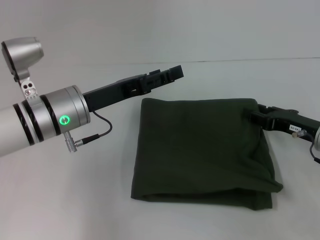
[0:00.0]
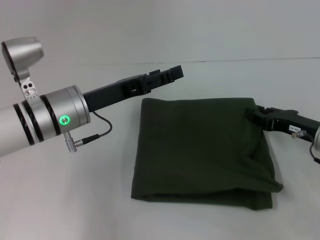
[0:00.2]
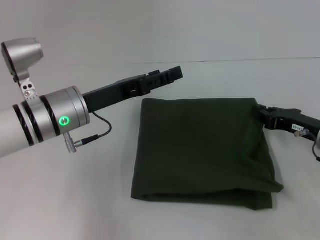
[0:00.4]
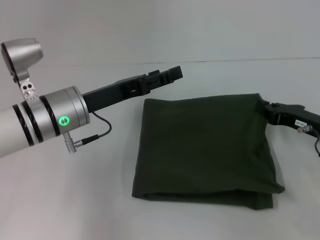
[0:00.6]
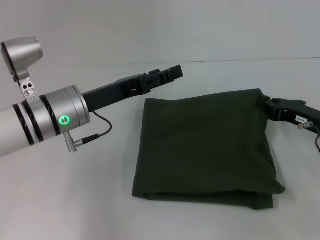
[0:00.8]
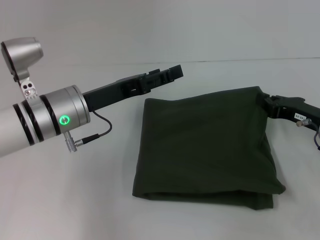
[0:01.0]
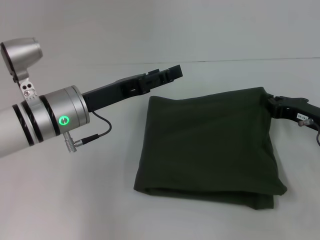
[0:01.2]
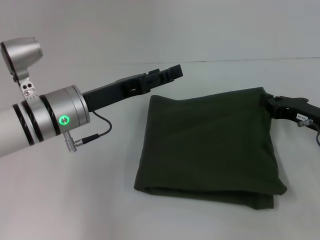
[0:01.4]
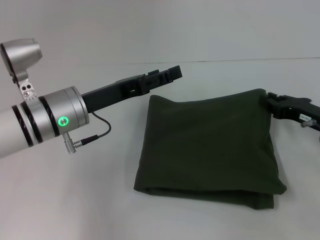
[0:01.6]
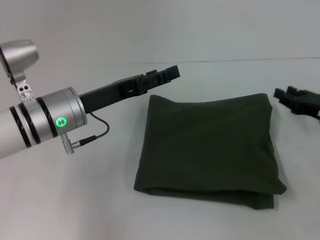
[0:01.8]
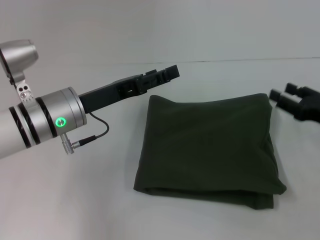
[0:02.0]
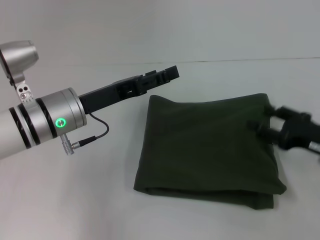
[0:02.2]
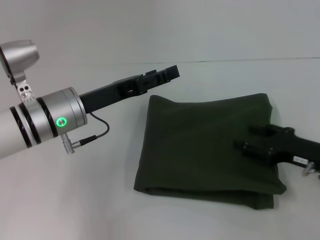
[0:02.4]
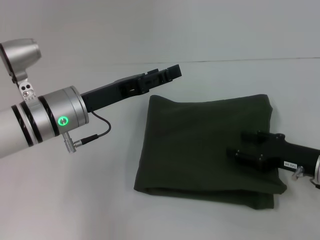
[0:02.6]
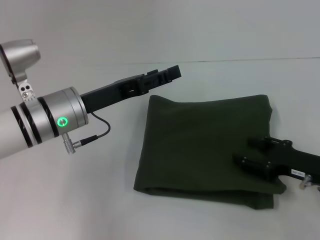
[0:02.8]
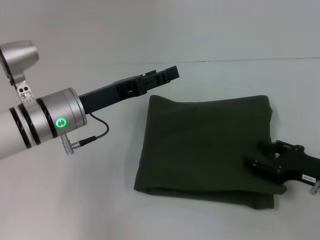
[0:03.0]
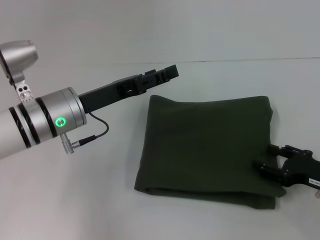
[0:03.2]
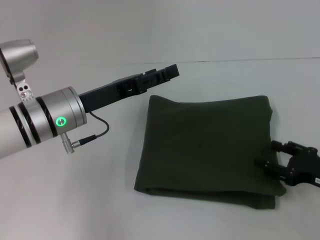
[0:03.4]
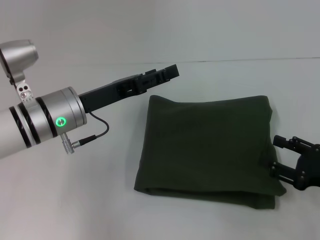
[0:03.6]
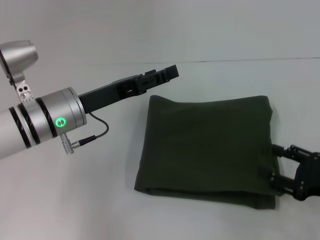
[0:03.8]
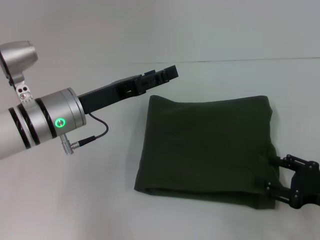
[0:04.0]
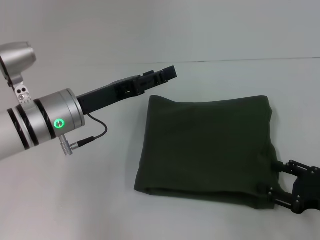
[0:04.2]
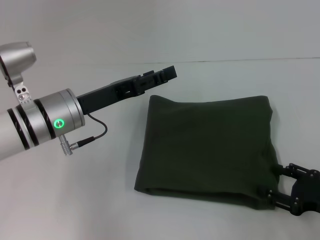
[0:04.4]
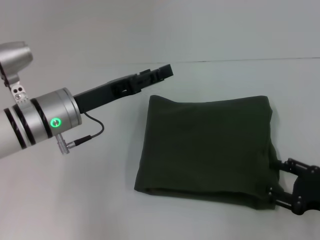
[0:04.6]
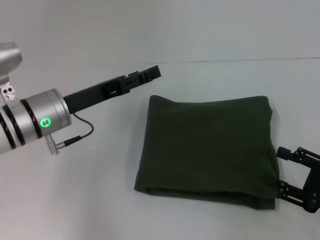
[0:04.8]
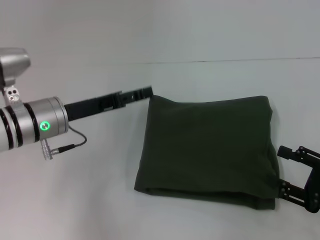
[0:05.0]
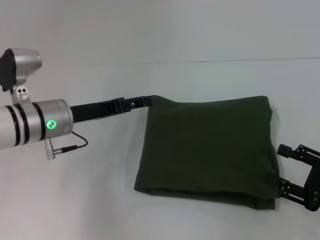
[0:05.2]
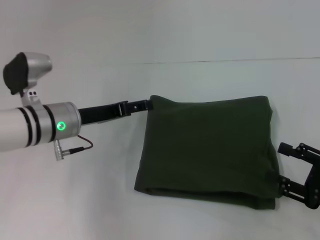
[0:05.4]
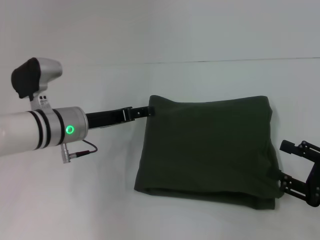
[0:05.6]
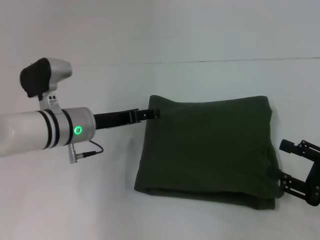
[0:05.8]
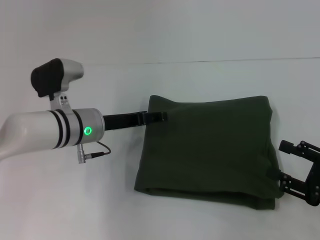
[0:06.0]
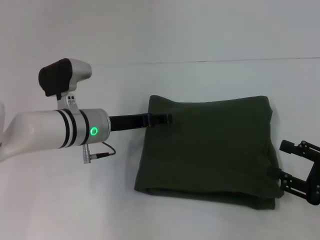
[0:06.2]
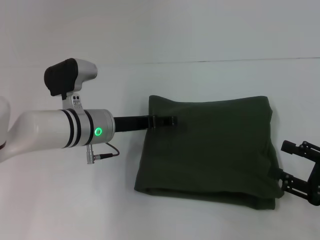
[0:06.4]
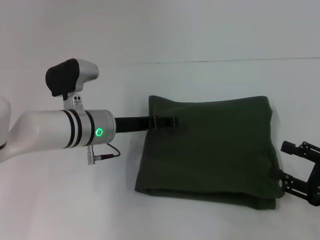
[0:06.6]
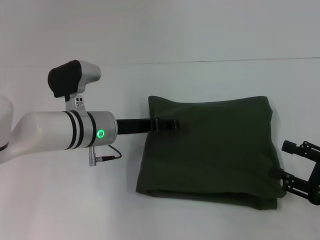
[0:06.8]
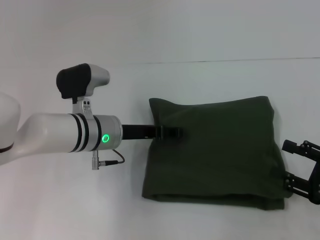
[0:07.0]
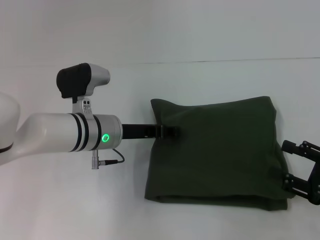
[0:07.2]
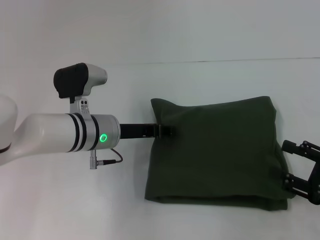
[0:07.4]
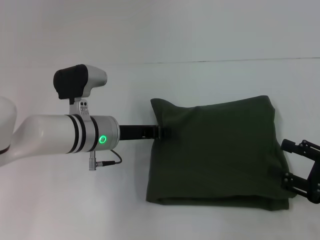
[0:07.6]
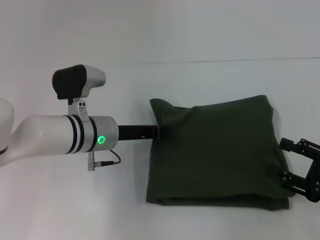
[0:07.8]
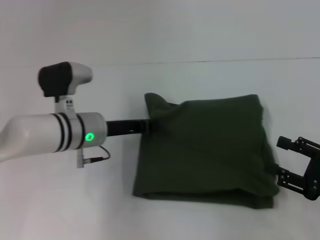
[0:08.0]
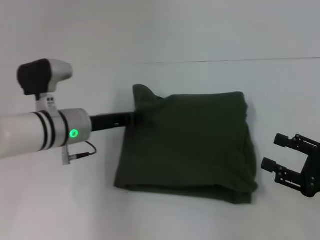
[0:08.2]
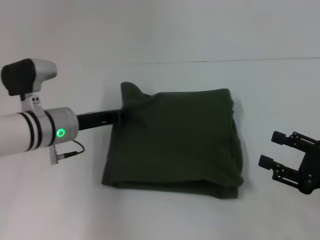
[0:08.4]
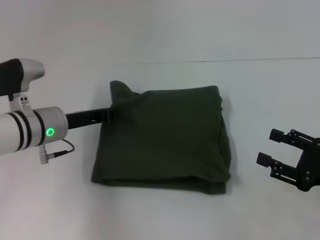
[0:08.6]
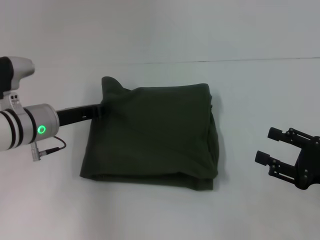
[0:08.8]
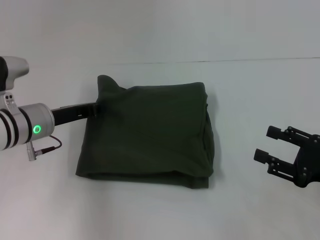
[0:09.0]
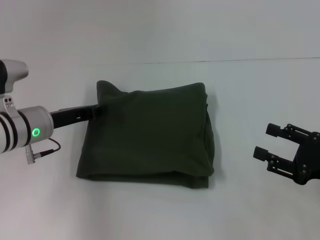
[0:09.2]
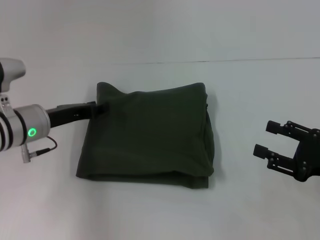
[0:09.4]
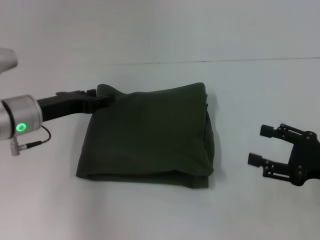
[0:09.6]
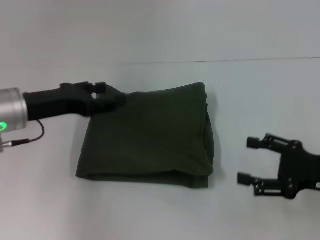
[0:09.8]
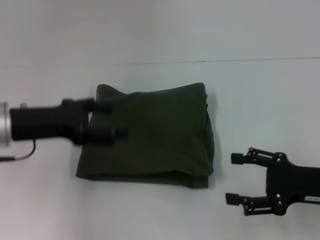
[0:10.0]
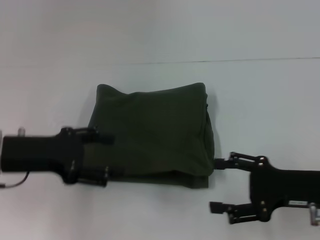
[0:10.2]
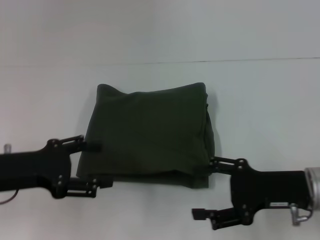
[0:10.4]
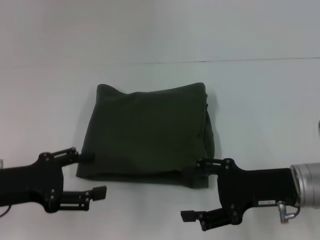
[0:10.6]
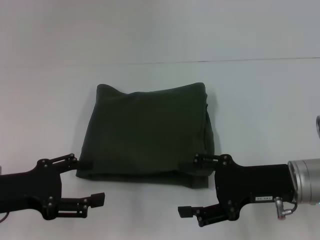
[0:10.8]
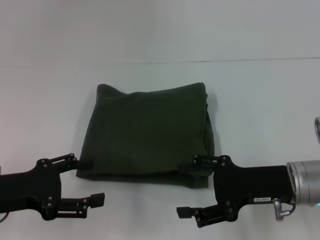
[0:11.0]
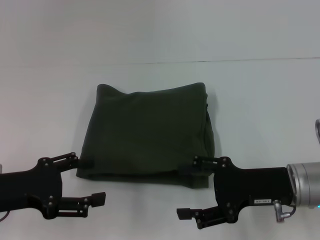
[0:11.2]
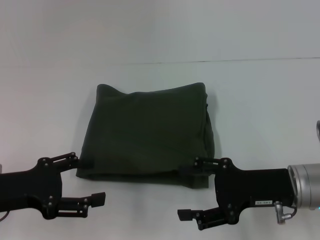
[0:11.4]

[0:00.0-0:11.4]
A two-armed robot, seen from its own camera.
0:00.0 to 0:01.4: The right gripper closes its fingers.
0:01.4 to 0:02.8: The right gripper shifts about 5 cm backward, and opens.
0:02.8 to 0:04.2: The right gripper goes about 5 cm backward.
0:05.6 to 0:07.2: The left gripper shifts roughly 5 cm to the right.
0:07.2 to 0:08.6: The left gripper shifts roughly 10 cm to the left, and closes up.
0:08.6 to 0:10.0: The left gripper is displaced upward by some 5 cm, and opens up.
0:10.0 to 0:11.4: The left gripper heads backward, covering some 5 cm. The right gripper shifts approximately 5 cm to the left.

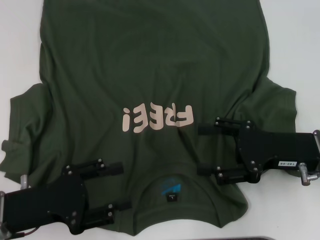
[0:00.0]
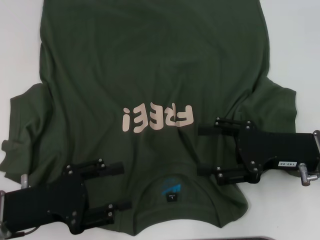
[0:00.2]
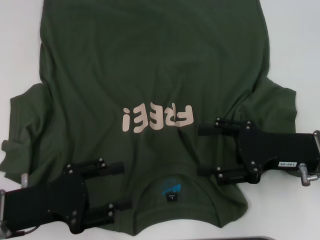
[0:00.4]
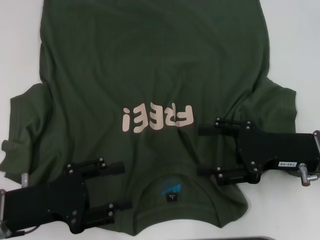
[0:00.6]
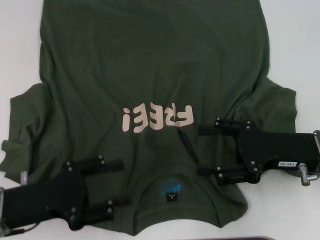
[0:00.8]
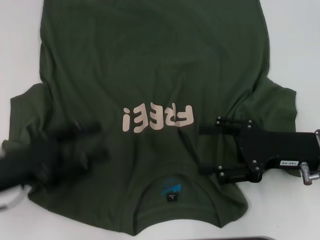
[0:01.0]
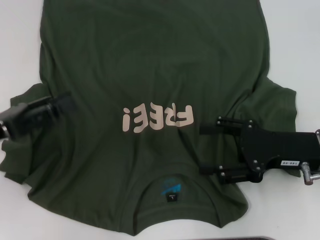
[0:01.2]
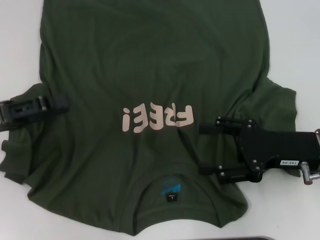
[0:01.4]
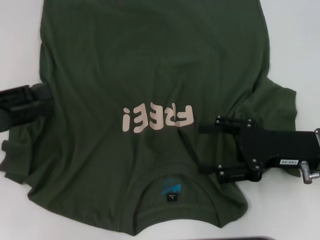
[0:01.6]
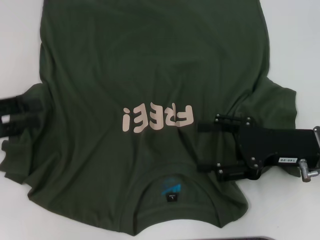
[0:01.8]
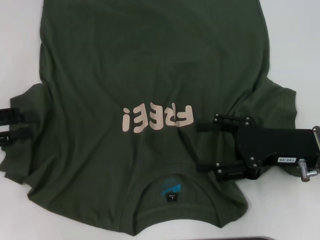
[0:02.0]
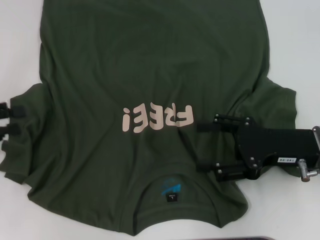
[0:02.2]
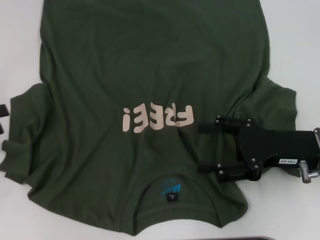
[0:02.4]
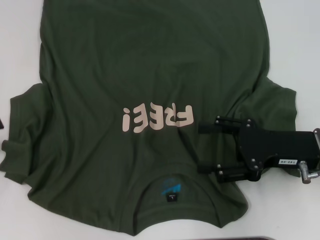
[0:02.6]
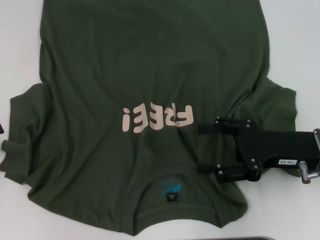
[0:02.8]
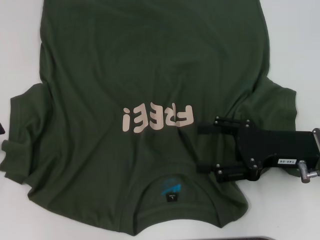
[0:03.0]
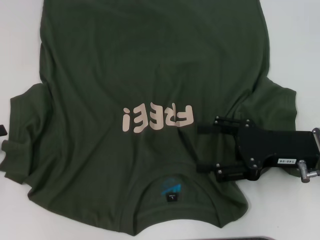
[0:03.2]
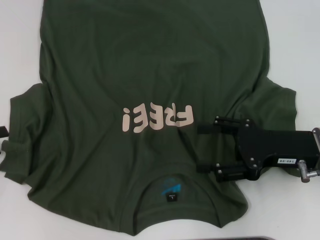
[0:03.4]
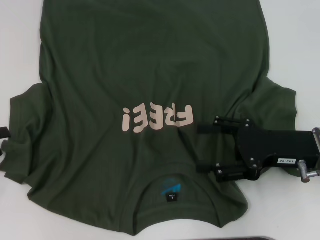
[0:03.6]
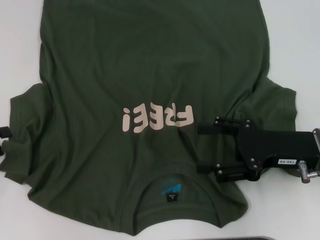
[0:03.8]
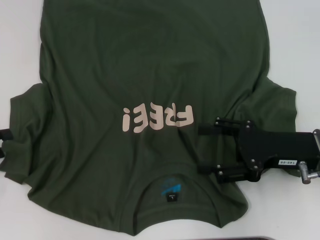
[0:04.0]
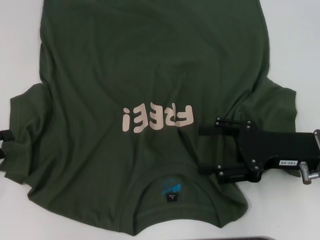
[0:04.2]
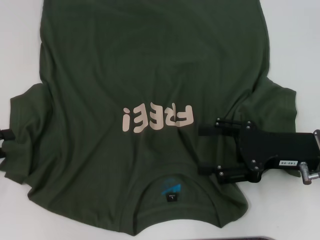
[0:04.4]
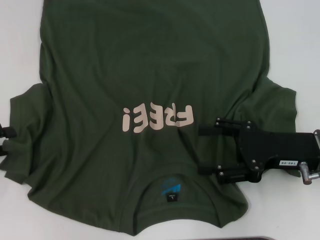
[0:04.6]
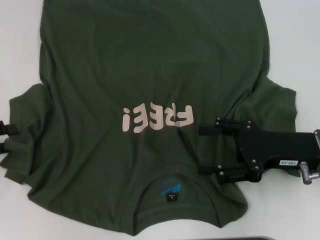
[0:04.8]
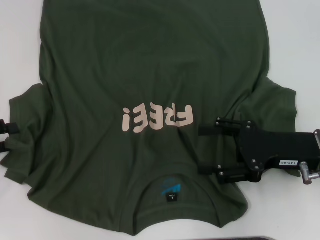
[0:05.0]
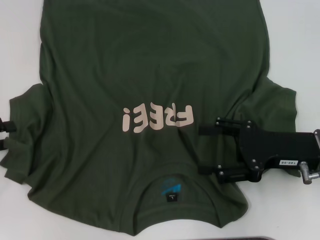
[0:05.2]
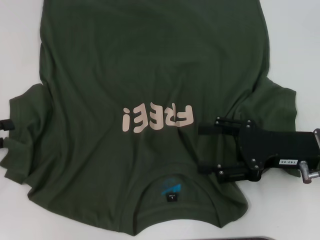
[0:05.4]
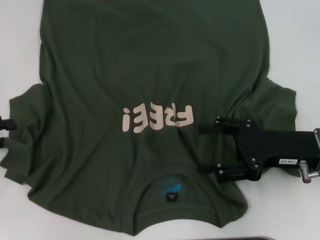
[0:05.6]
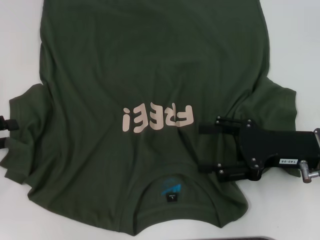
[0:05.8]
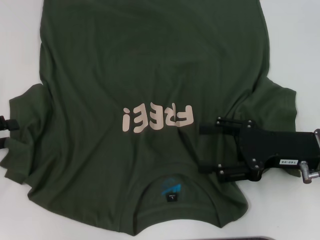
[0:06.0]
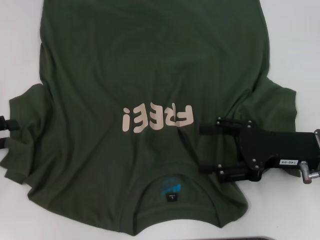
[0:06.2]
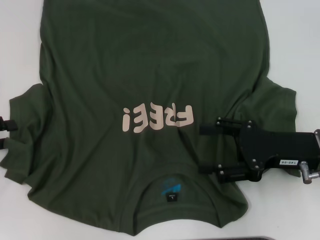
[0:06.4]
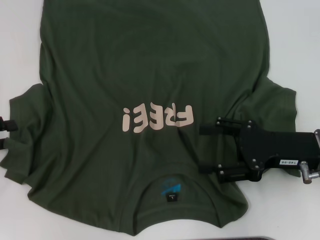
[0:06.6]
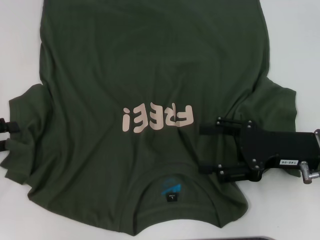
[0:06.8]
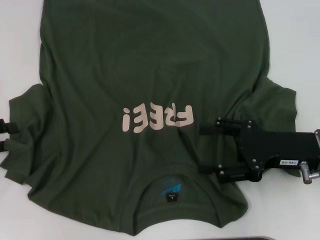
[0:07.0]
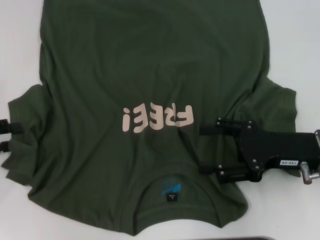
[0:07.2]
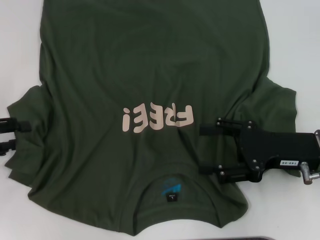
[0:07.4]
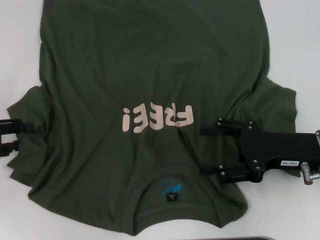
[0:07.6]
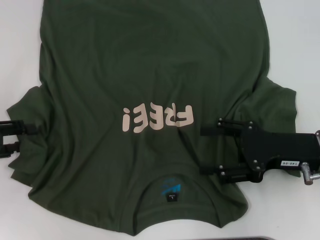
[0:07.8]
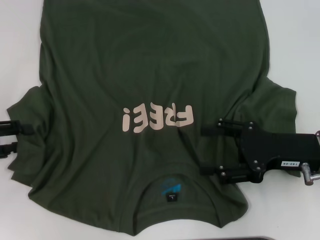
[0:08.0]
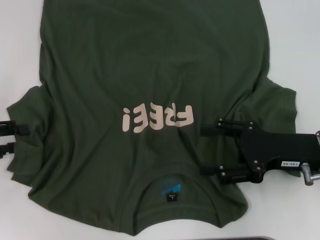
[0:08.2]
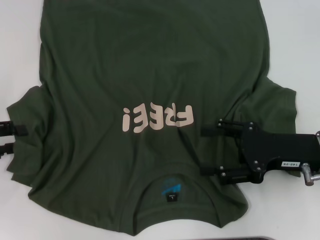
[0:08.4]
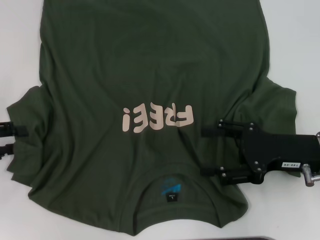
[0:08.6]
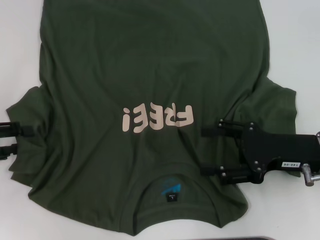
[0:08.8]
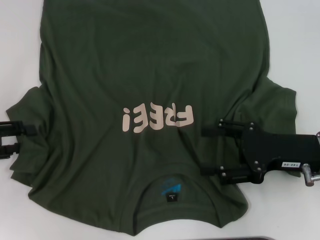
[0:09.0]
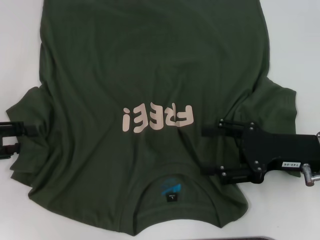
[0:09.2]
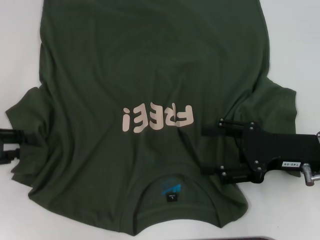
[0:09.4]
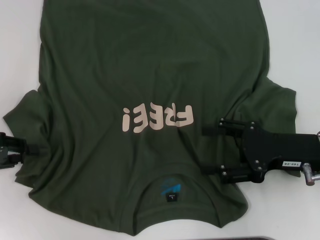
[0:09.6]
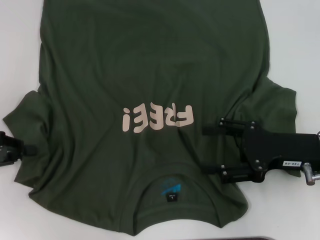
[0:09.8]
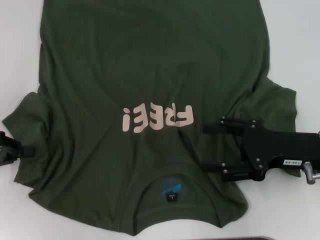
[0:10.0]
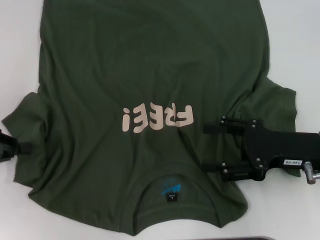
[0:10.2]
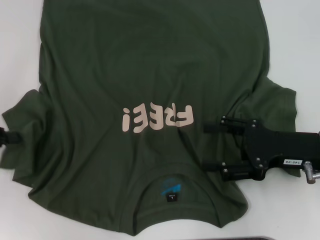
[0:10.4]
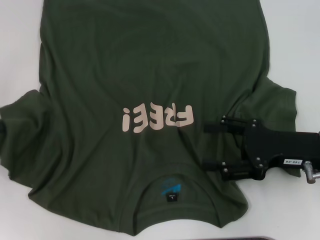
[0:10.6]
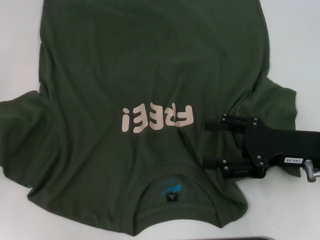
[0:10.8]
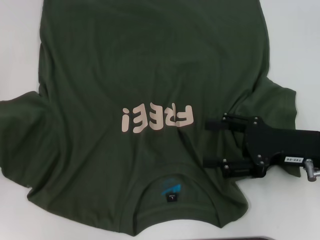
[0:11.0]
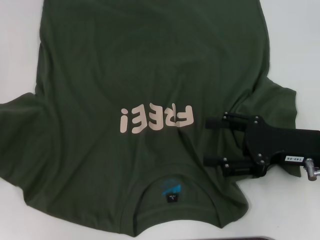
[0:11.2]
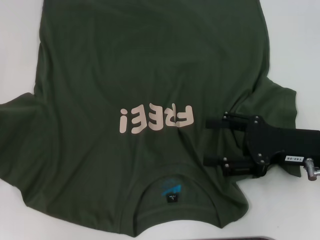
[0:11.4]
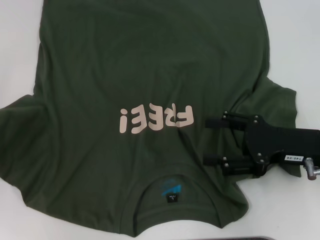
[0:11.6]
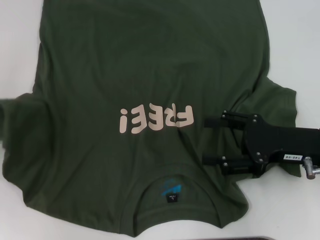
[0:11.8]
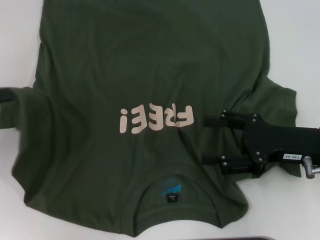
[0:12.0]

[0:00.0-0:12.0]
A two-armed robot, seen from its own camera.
0:00.0 to 0:01.6: The left gripper goes about 15 cm to the left, forward and upward.
0:01.6 to 0:03.0: The left gripper is displaced to the left by roughly 5 cm.
0:03.0 to 0:07.6: The grippers stay close to where they were, moving slightly.
0:07.6 to 0:09.0: Both grippers stay about where they are.
0:09.0 to 0:10.4: The left gripper closes up.
0:10.4 to 0:12.0: The grippers make only small movements.
